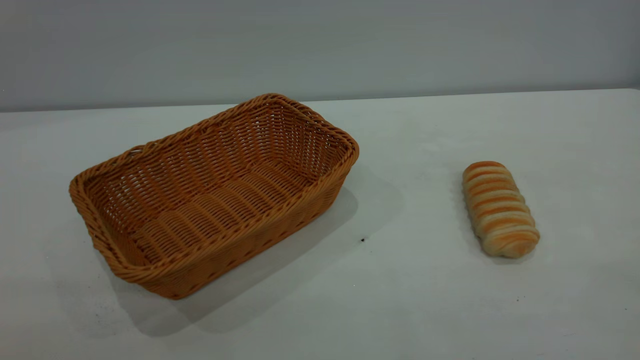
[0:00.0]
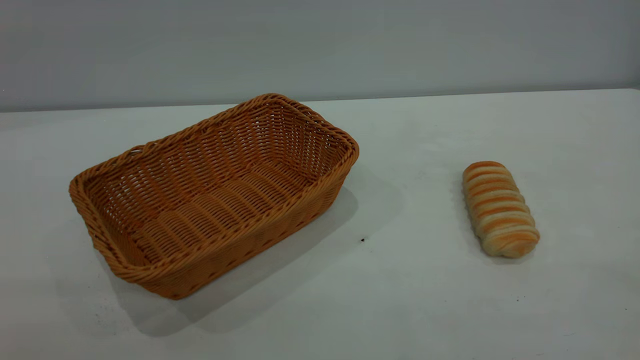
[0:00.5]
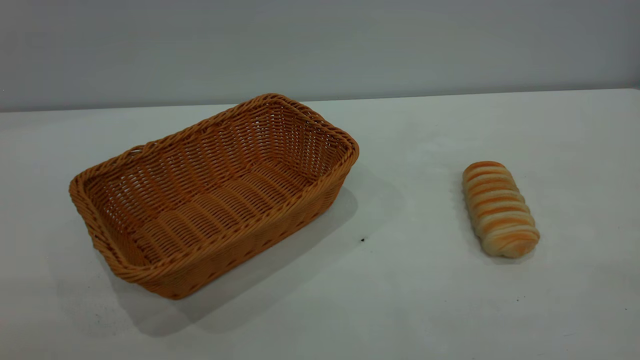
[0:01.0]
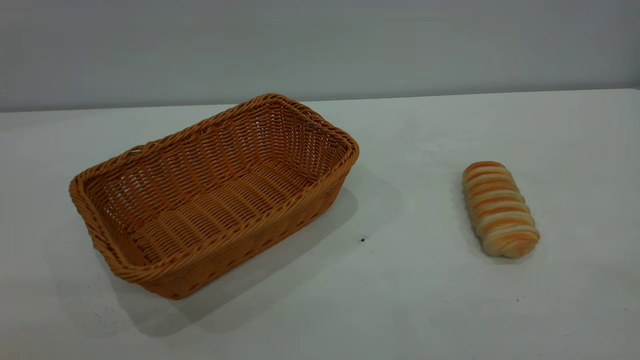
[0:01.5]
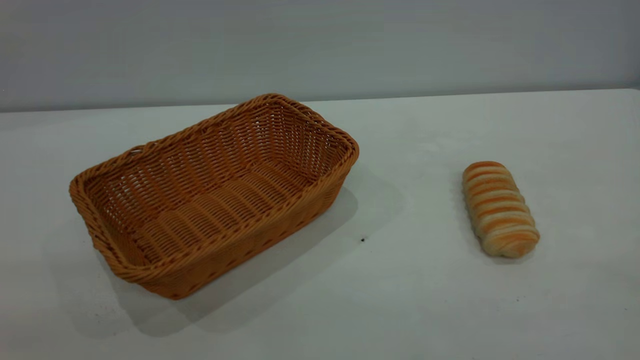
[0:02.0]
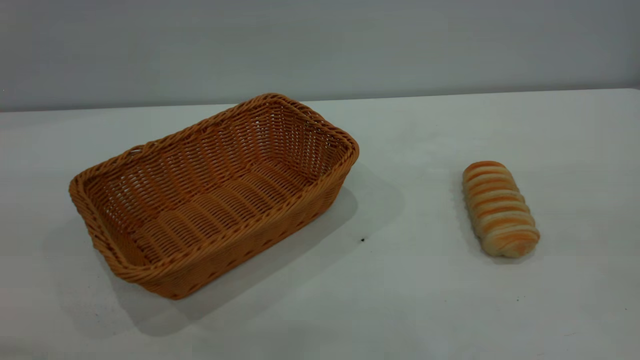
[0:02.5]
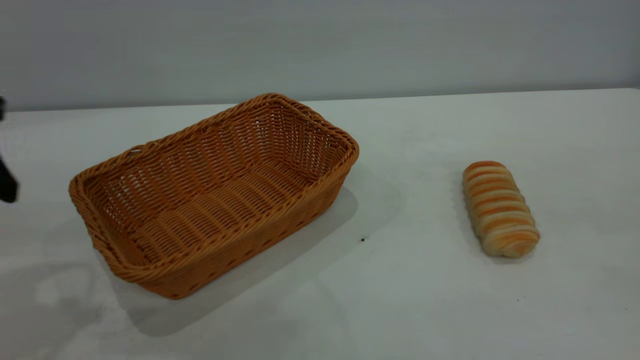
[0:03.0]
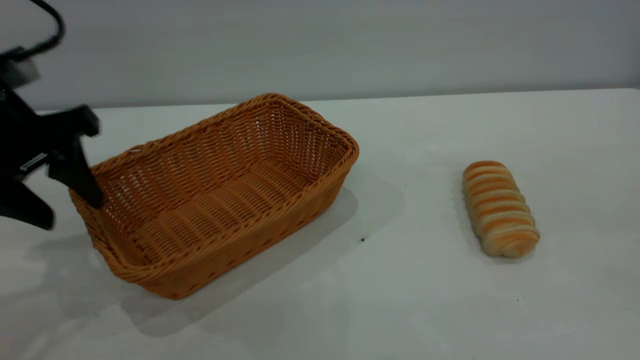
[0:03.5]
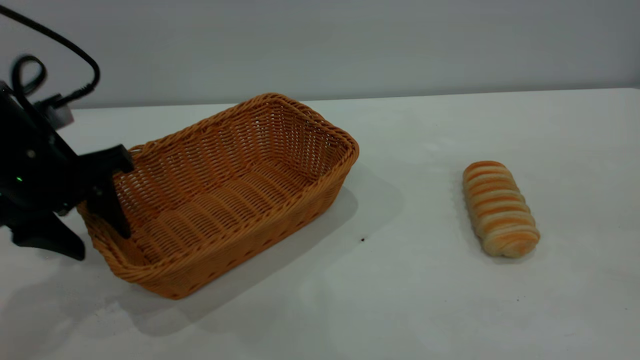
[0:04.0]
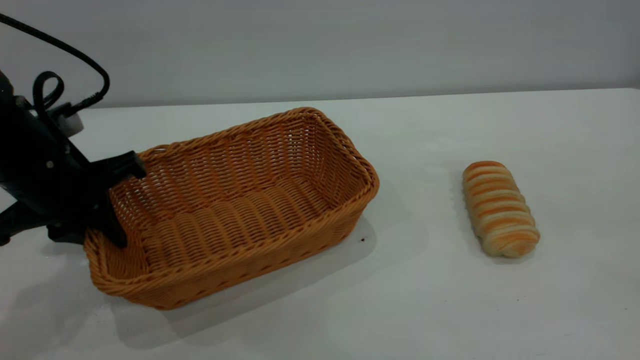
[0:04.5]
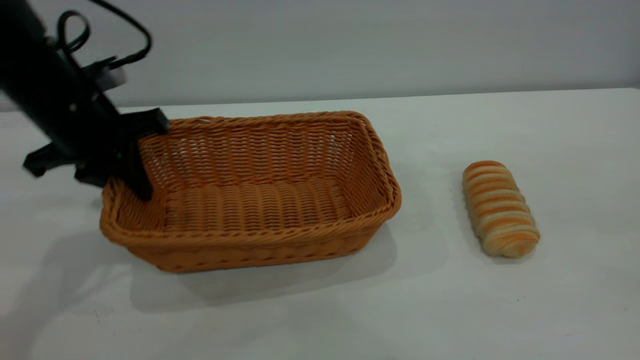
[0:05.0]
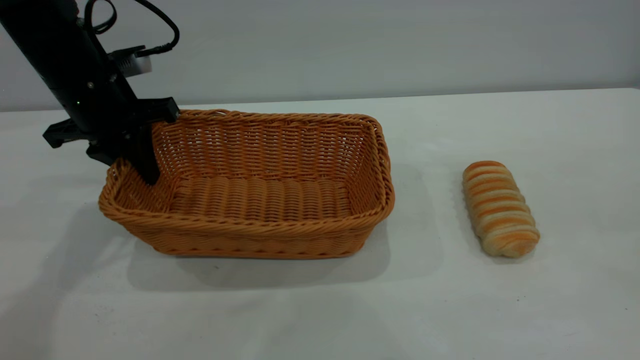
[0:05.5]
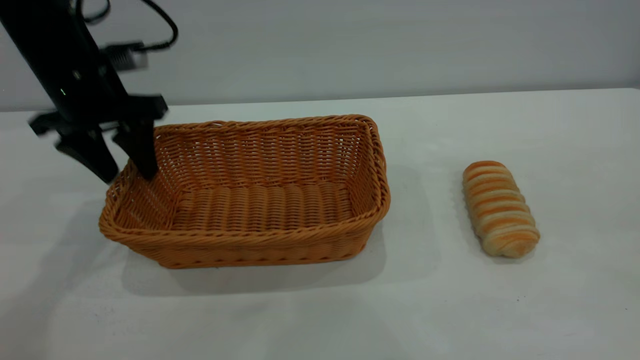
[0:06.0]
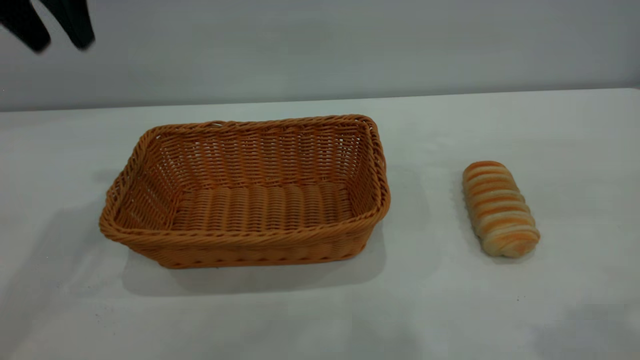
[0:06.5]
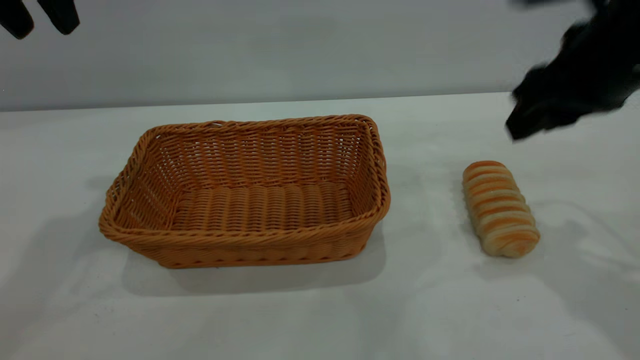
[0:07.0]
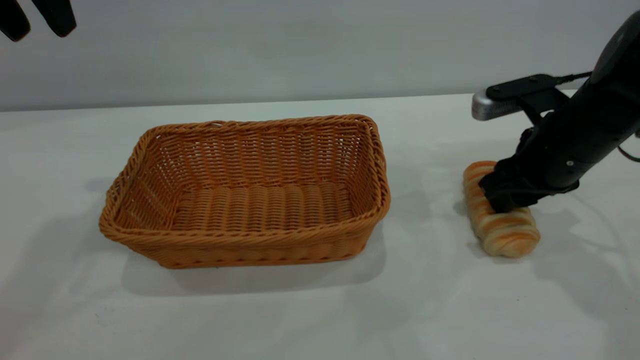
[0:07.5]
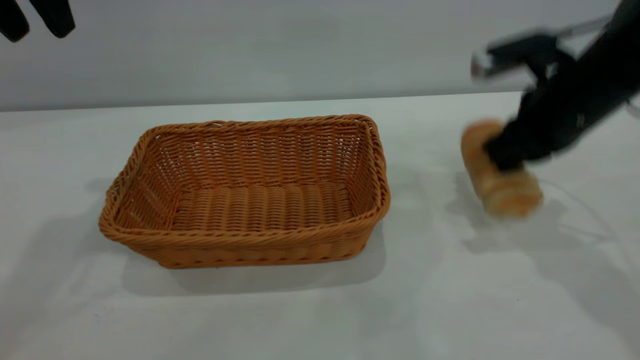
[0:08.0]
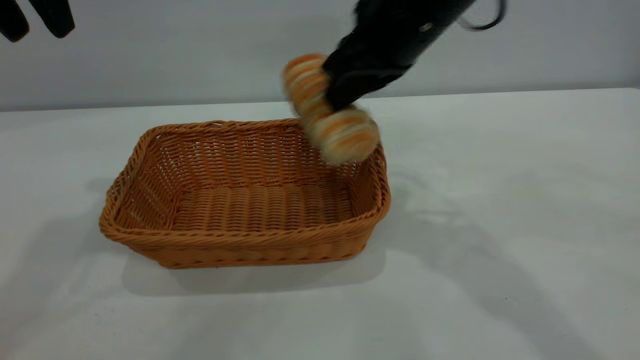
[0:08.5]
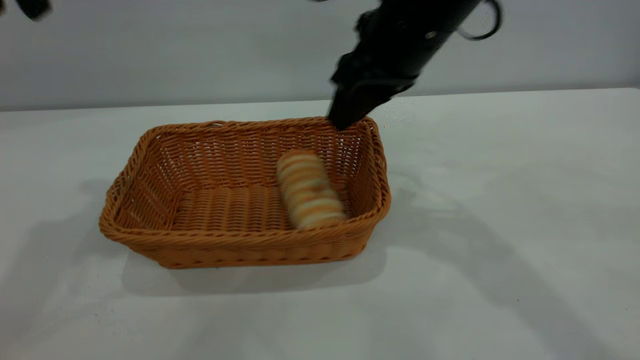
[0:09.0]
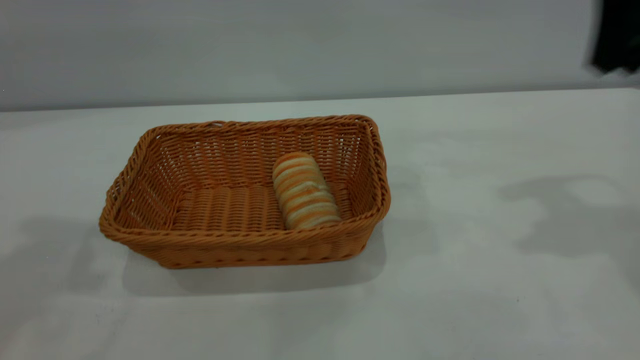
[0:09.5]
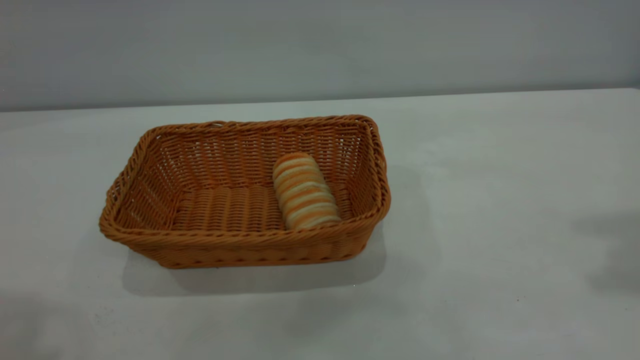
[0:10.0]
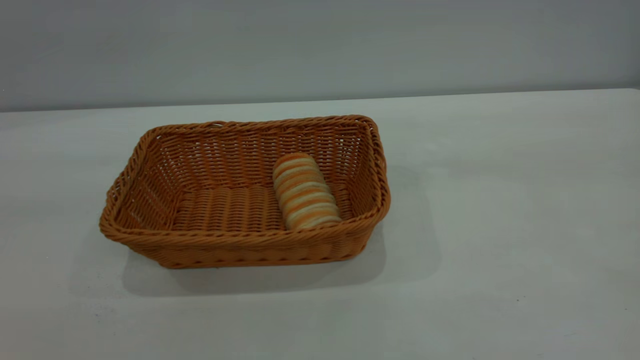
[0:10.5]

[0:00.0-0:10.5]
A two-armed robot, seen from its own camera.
Task of the whole recording: One hand grasps the yellow basket and places it in the middle of the table, while the other hand picks up the long bread and puts it into the yellow basket.
Step, 0:00.0 to 0:06.0: Move the basket to the center of view.
Step, 0:08.5 to 0:09.0: place the bread into the basket.
0:02.0 to 0:04.0: The left gripper goes approximately 40 cm forward and downward.
0:04.0 to 0:06.5: The right gripper travels forward by approximately 5 cm, while the left gripper heads upward and forward, covering some 20 cm, and closes, then opens again.
0:06.5 to 0:08.5: The right gripper travels forward, to the left and downward by some 30 cm, and closes its fingers.
0:08.5 to 0:10.5: The left gripper heads backward and upward, covering some 35 cm; the right gripper goes about 40 cm backward, upward and to the right, and opens up.
